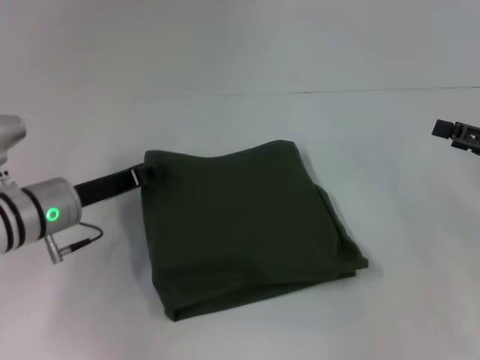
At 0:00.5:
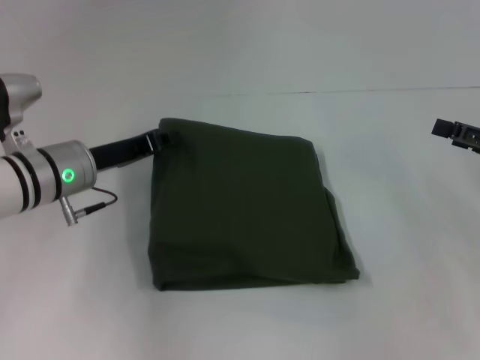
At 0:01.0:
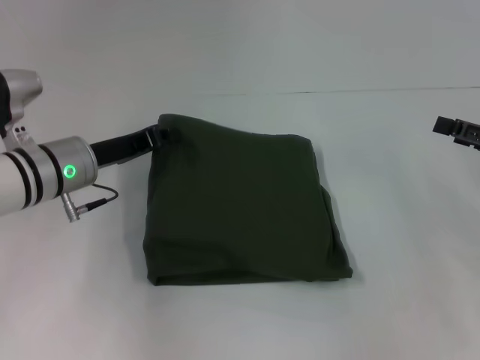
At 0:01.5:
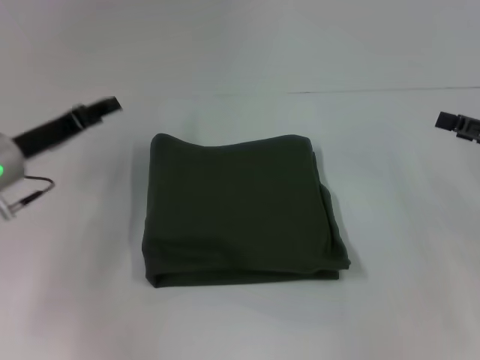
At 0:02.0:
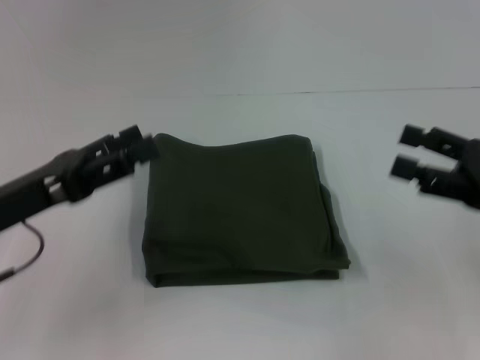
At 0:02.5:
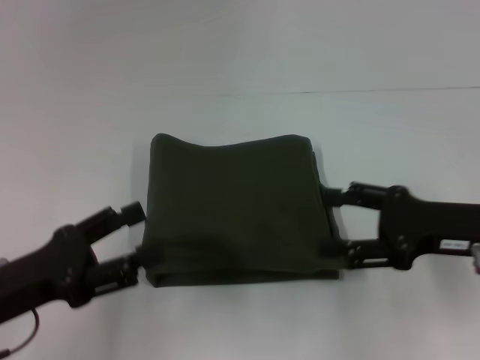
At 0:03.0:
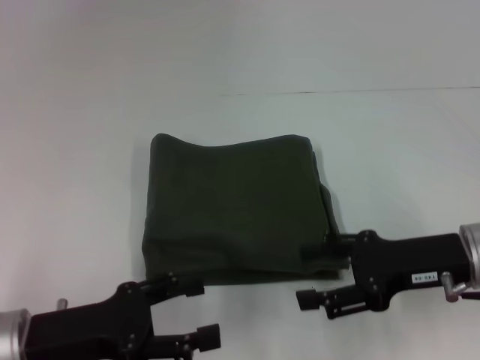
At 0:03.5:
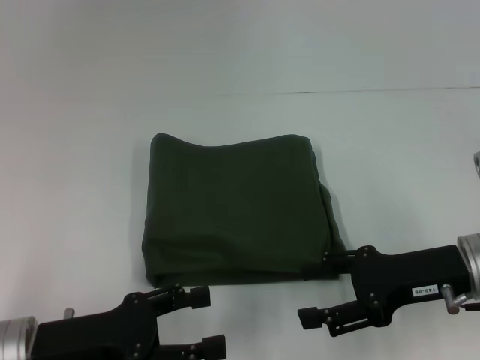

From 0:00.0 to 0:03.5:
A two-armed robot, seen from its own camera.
From 0:00.0 to 0:02.0: The right gripper goes some 5 cm to the left, while the left gripper heads backward and upward, covering about 10 cm, and opens up.
From 0:02.0 to 0:03.5: The left gripper goes about 10 cm backward and downward; the right gripper is displaced to the left by some 10 cm.

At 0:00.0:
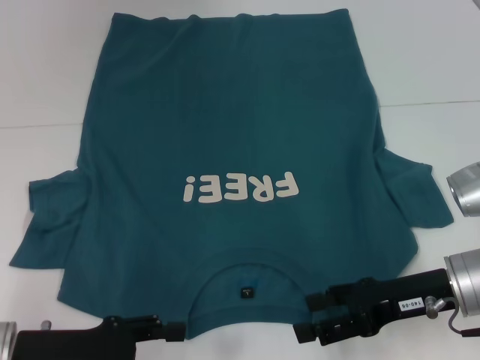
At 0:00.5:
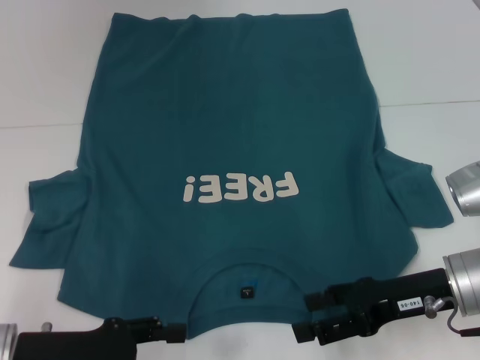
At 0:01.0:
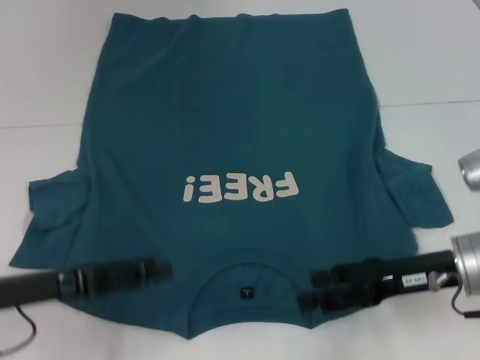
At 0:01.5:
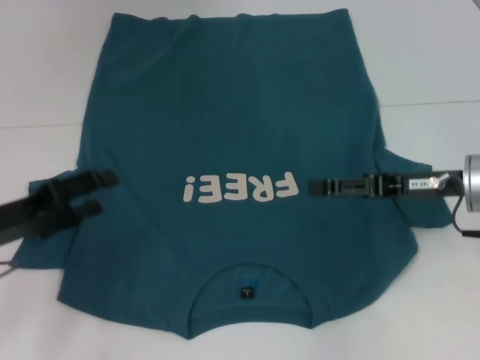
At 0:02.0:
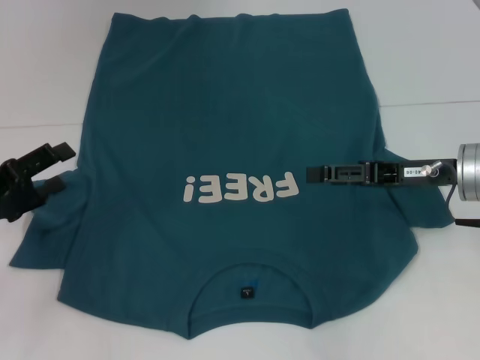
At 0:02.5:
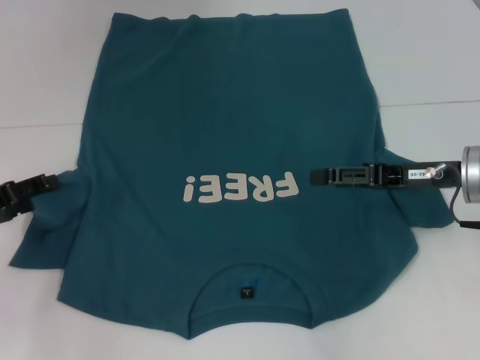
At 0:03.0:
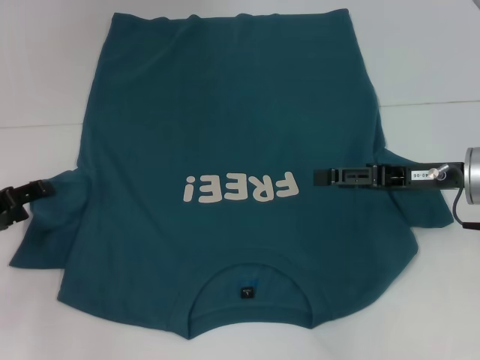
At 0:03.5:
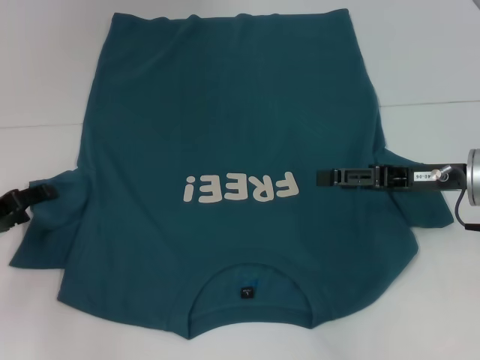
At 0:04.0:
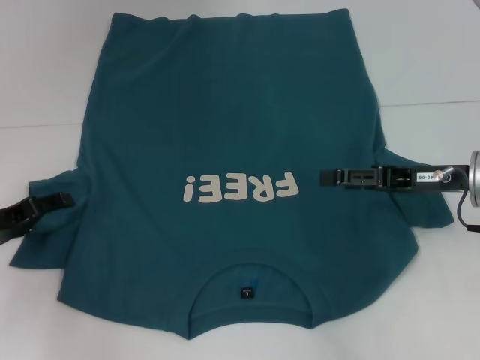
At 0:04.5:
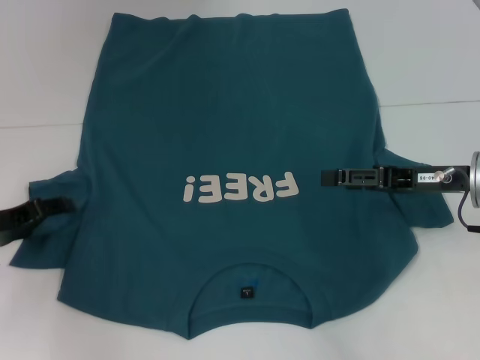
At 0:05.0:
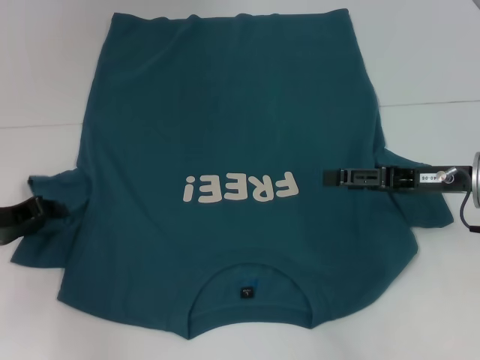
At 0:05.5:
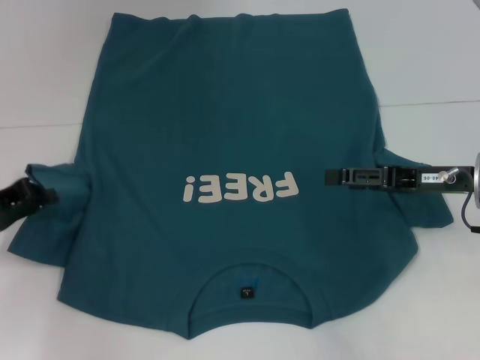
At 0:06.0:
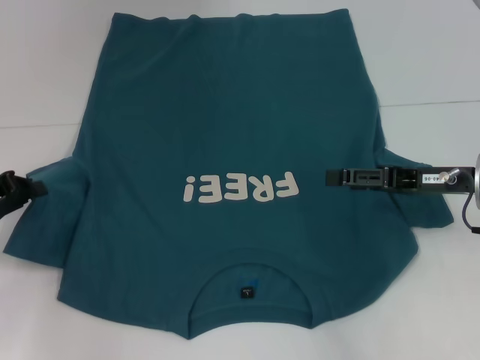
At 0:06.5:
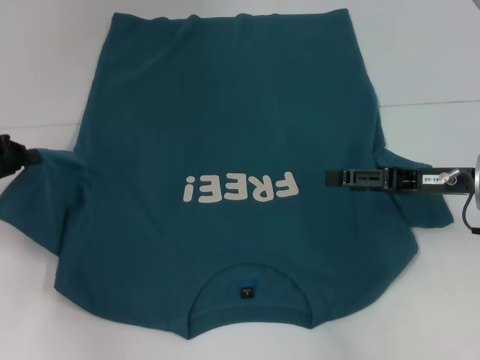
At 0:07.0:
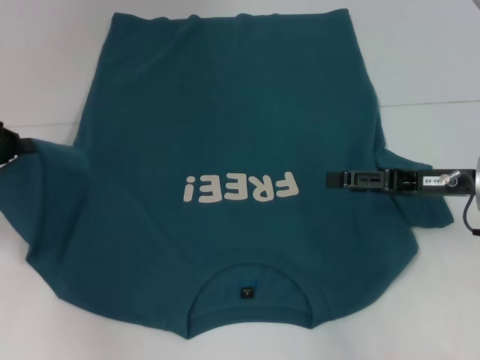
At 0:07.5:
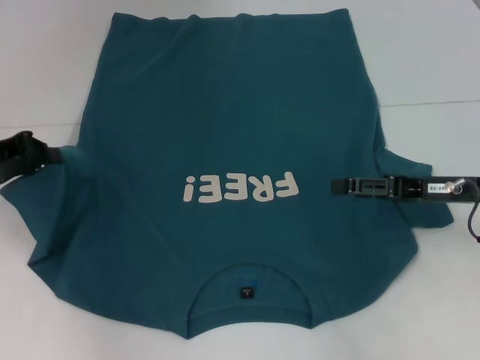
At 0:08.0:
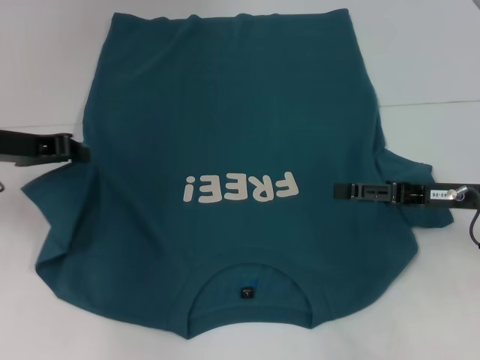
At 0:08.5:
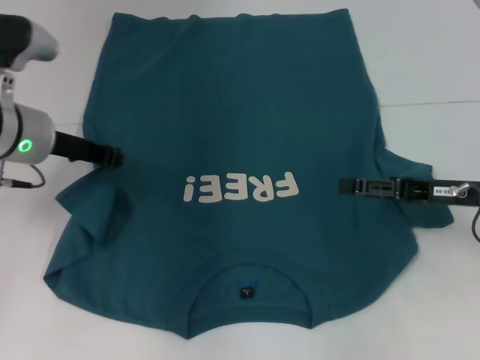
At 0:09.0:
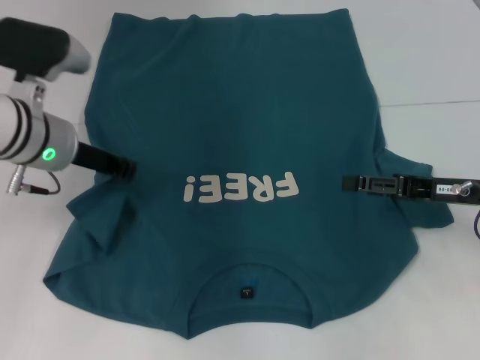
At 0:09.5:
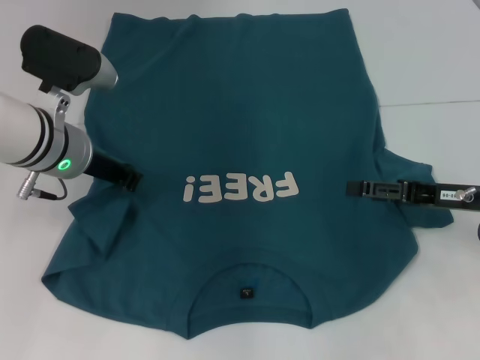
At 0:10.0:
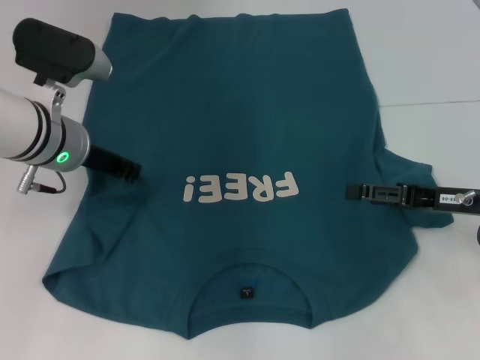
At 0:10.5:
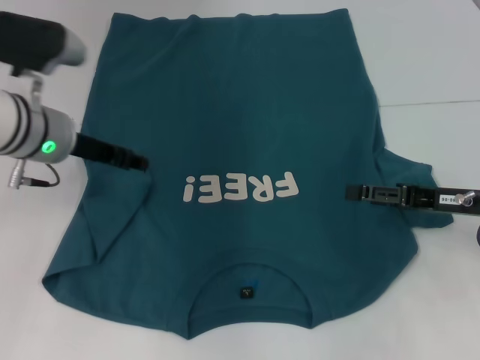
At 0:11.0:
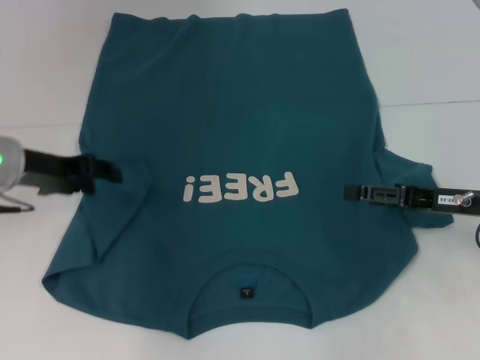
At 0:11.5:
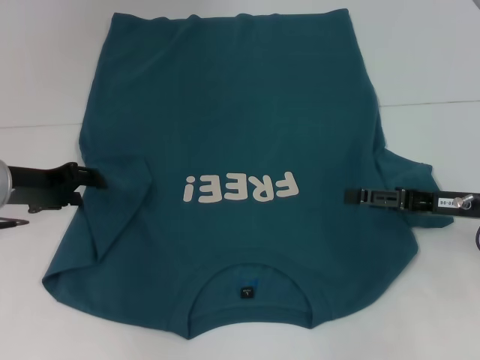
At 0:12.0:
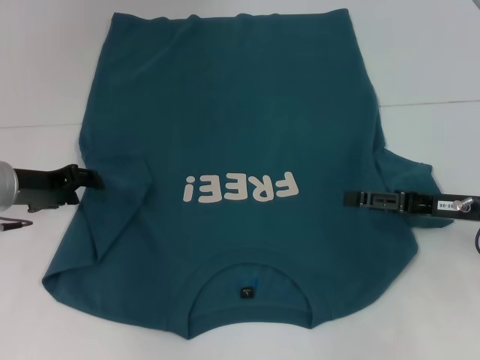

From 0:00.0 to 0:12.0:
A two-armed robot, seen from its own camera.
From 0:00.0 to 0:02.0: The right gripper goes about 5 cm forward; the left gripper goes roughly 10 cm forward and to the left.
From 0:04.0 to 0:06.0: The left gripper closes its fingers.
From 0:06.0 to 0:08.0: The left gripper travels upward, to the right and forward by about 10 cm.
From 0:08.0 to 0:10.0: The left gripper heads to the right, covering about 10 cm.
From 0:10.0 to 0:12.0: The left gripper is displaced to the left by roughly 10 cm, and opens up.

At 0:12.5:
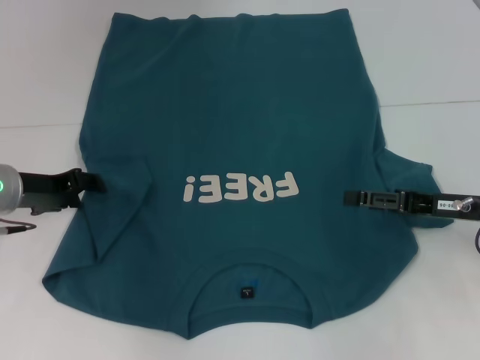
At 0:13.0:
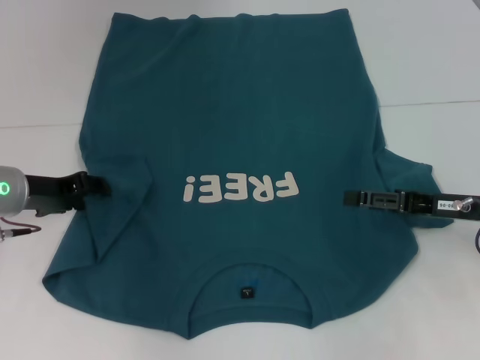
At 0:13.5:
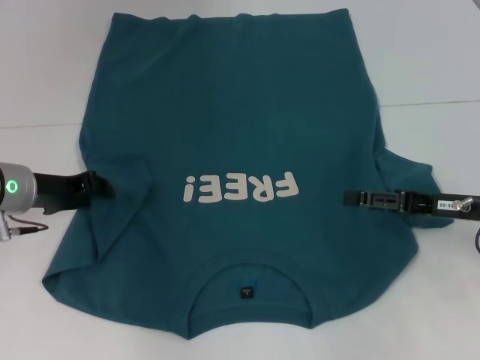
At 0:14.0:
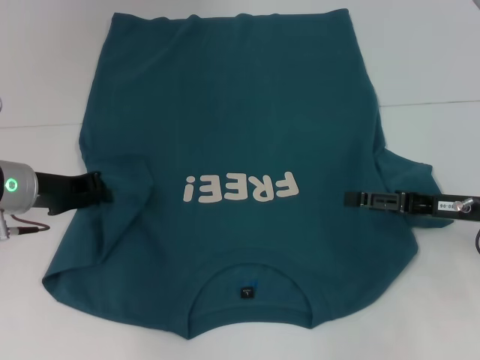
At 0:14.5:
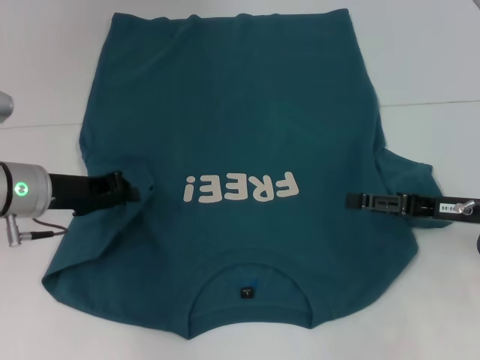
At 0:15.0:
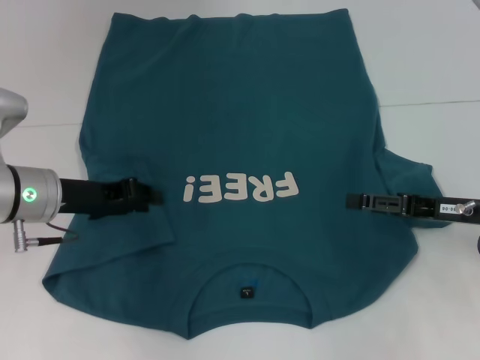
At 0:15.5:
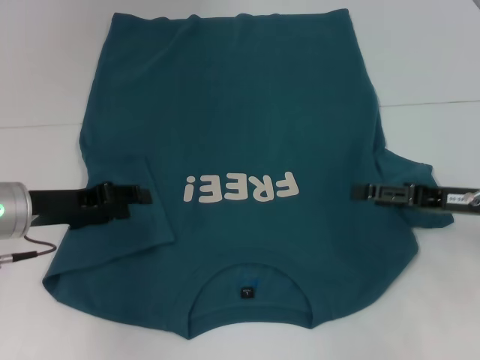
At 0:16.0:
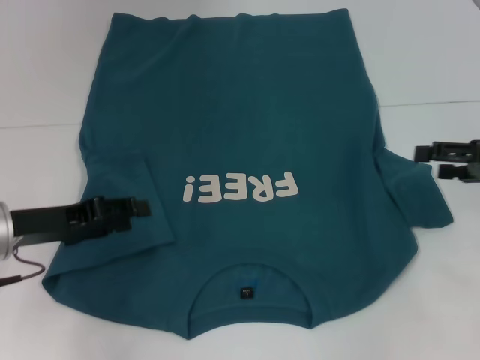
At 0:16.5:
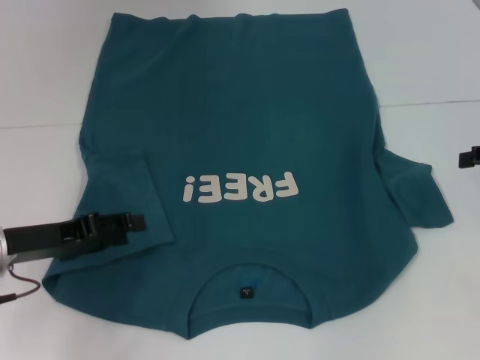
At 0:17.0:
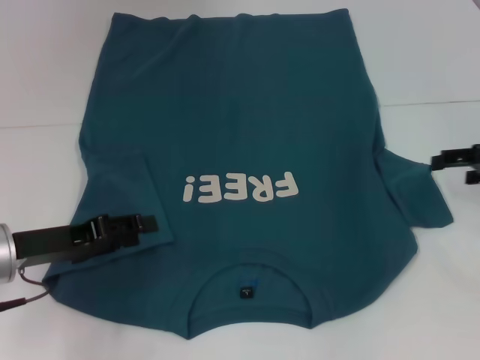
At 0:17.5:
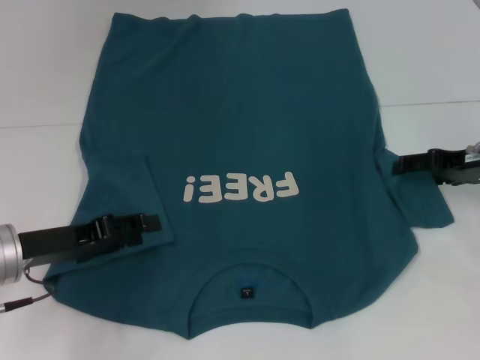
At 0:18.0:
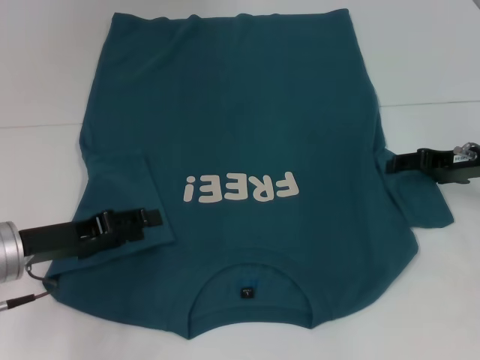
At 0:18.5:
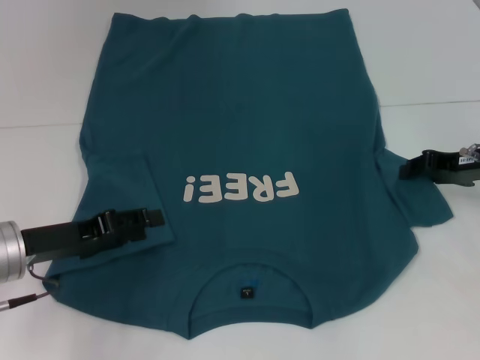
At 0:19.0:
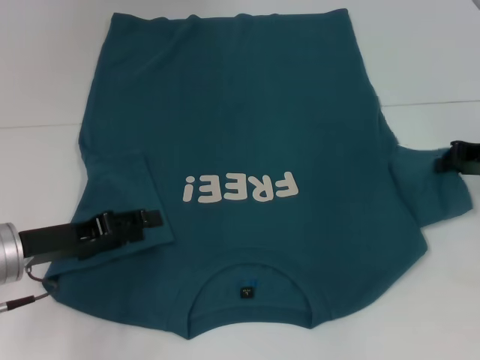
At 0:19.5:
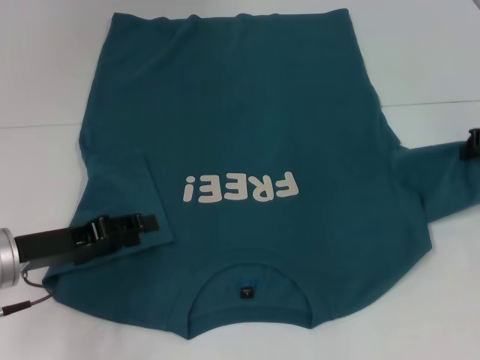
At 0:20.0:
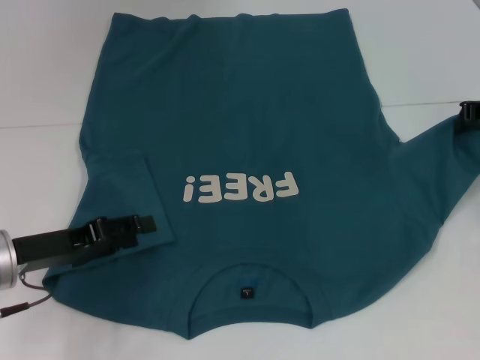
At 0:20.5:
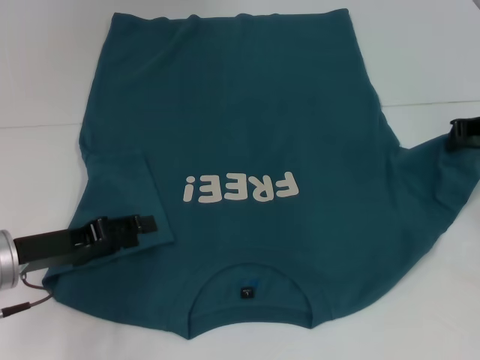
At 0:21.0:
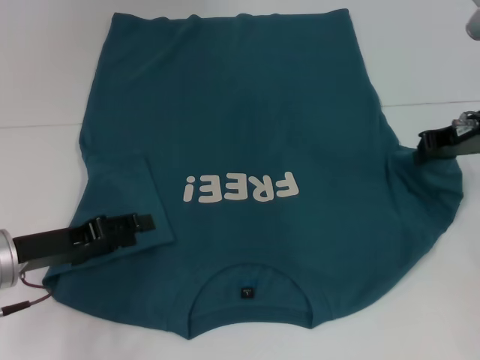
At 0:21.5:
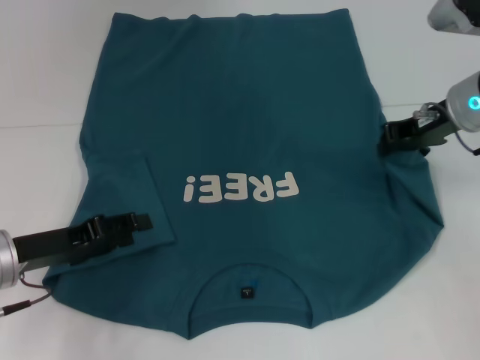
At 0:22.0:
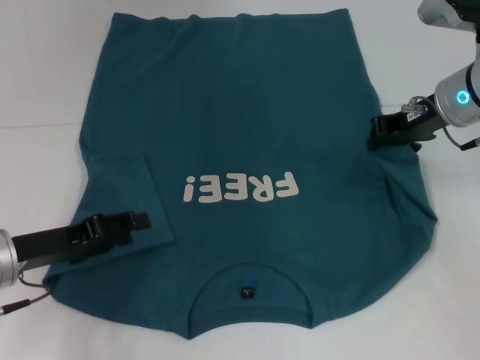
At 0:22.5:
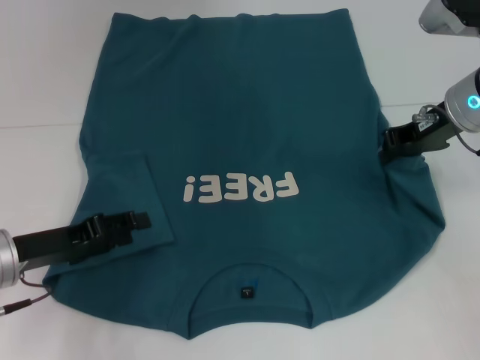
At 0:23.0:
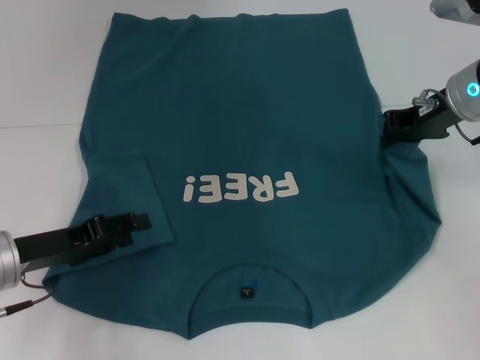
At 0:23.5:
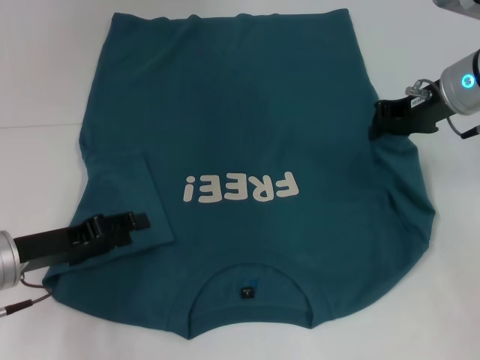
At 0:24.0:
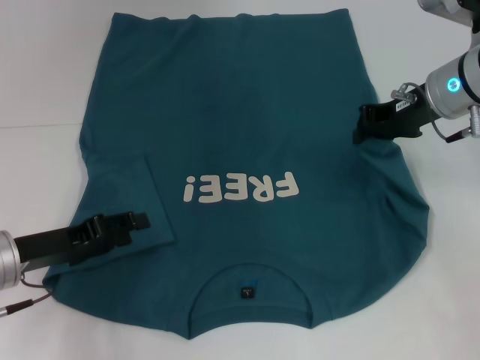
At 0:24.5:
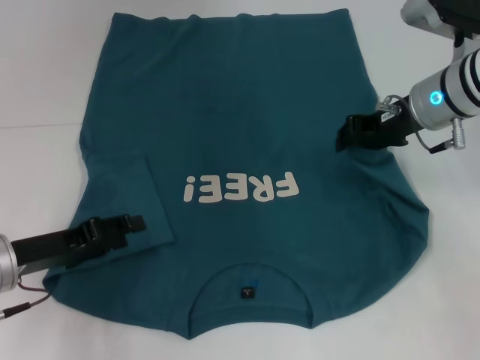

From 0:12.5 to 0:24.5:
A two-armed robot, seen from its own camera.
Step, from 0:12.5 to 0:15.5: Fold the bottom left sleeve with your left hand.
From 0:12.5 to 0:14.5: The left gripper closes.
From 0:14.5 to 0:16.5: The left gripper shifts roughly 5 cm backward, and opens up. The right gripper heads to the right and upward, covering approximately 10 cm.
From 0:16.5 to 0:18.5: The right gripper moves to the left and downward, approximately 10 cm, and closes its fingers.
From 0:18.5 to 0:20.5: The right gripper travels upward by about 5 cm, and closes.
From 0:20.5 to 0:22.5: The right gripper moves to the left, roughly 10 cm.
From 0:22.5 to 0:24.5: The grippers stay close to where they were, moving slightly.
